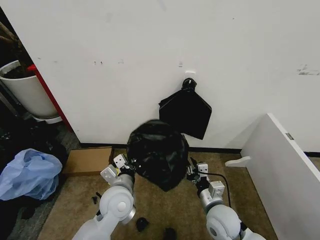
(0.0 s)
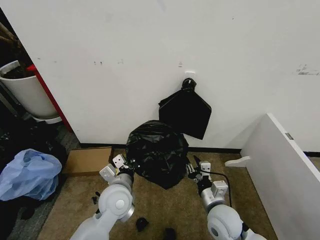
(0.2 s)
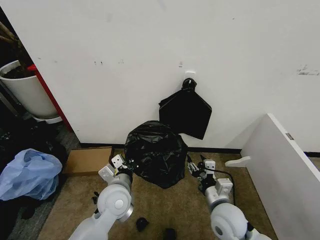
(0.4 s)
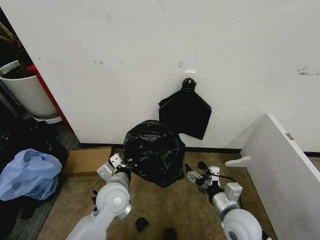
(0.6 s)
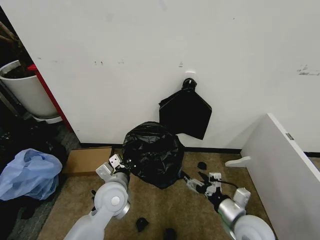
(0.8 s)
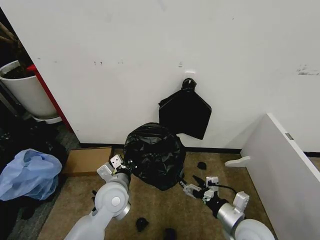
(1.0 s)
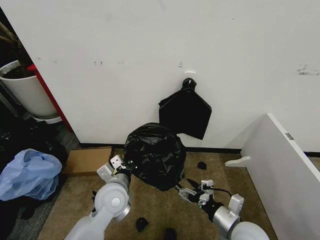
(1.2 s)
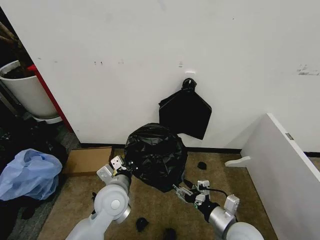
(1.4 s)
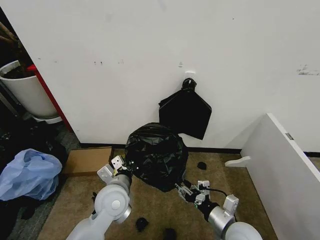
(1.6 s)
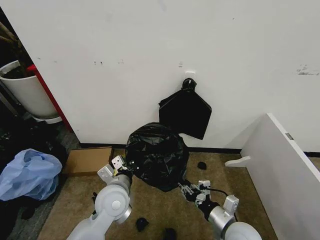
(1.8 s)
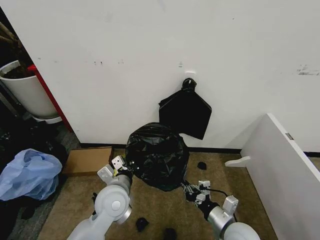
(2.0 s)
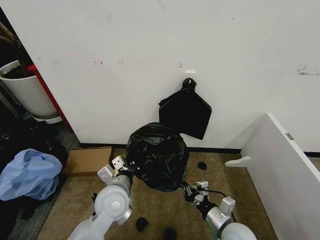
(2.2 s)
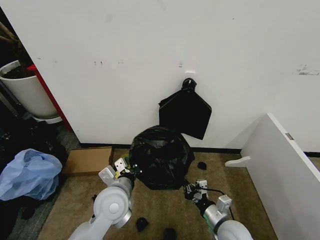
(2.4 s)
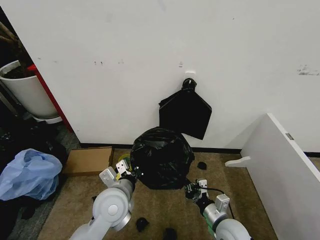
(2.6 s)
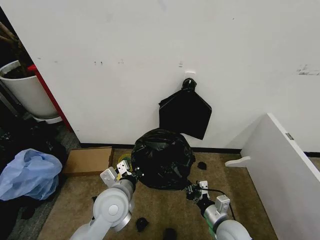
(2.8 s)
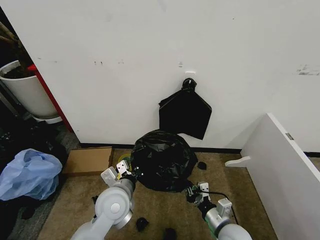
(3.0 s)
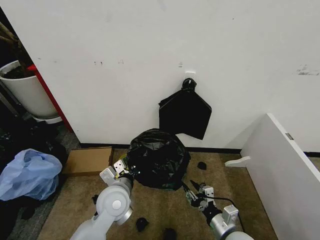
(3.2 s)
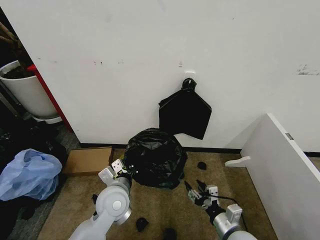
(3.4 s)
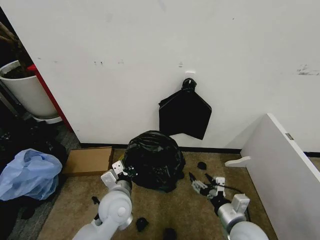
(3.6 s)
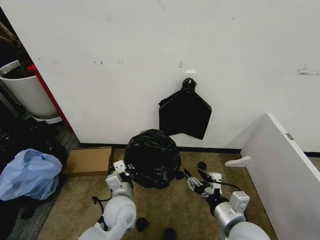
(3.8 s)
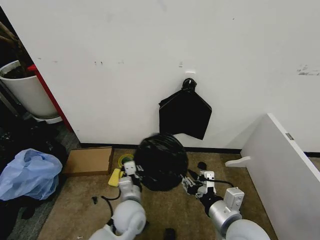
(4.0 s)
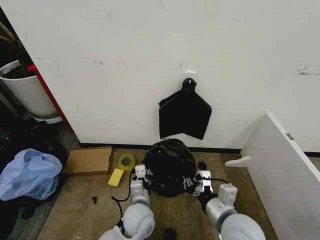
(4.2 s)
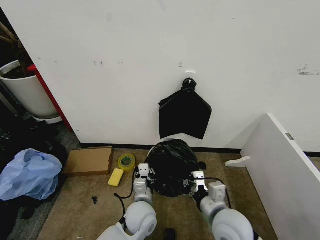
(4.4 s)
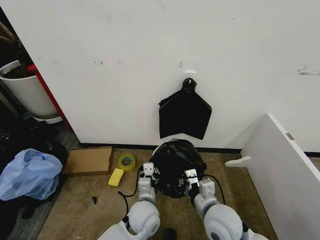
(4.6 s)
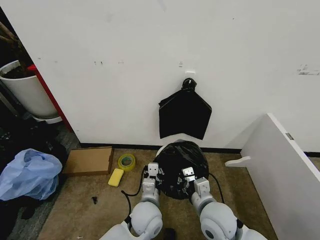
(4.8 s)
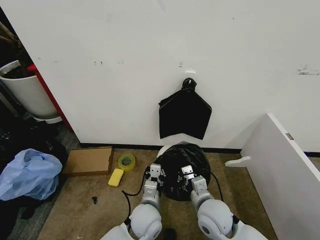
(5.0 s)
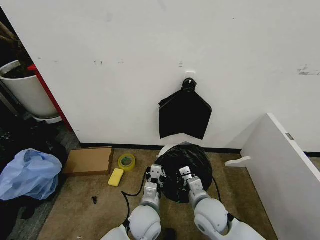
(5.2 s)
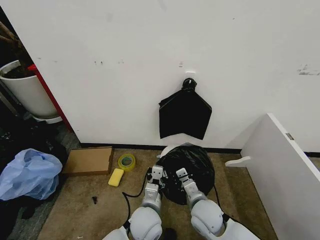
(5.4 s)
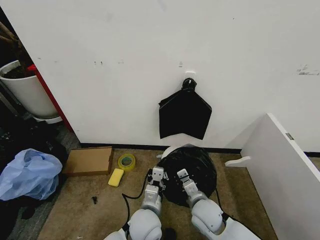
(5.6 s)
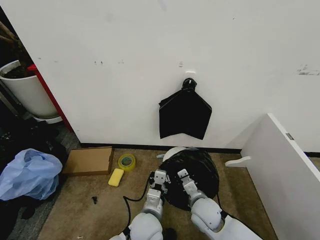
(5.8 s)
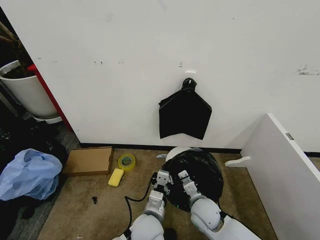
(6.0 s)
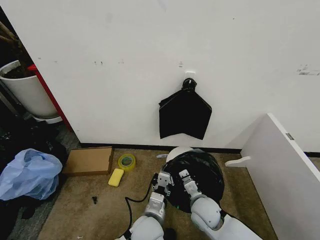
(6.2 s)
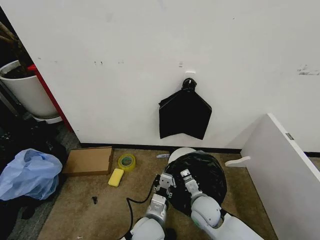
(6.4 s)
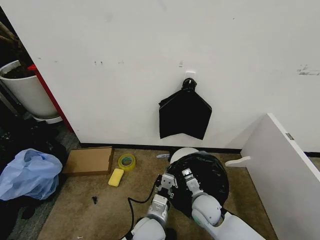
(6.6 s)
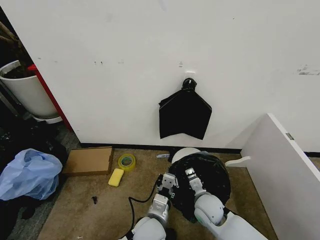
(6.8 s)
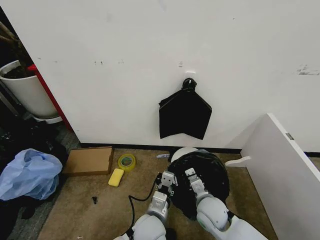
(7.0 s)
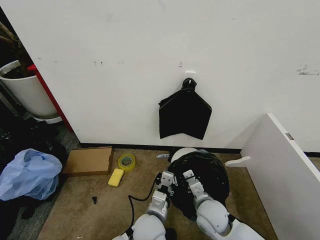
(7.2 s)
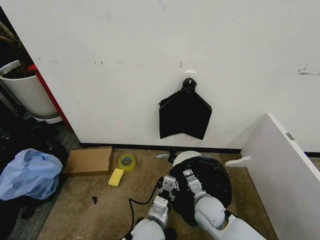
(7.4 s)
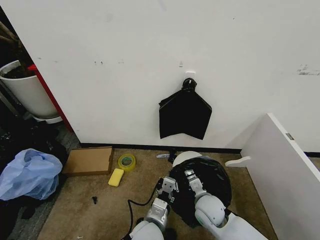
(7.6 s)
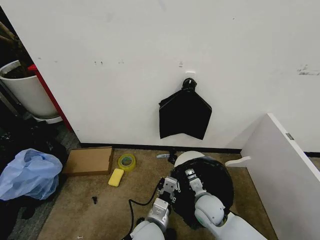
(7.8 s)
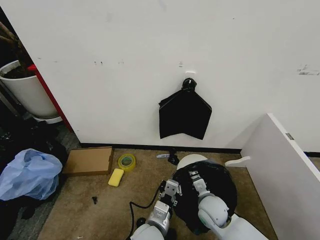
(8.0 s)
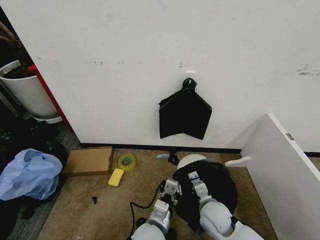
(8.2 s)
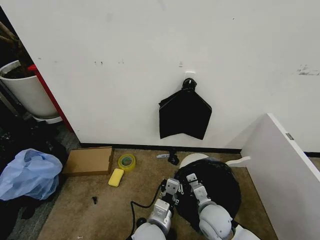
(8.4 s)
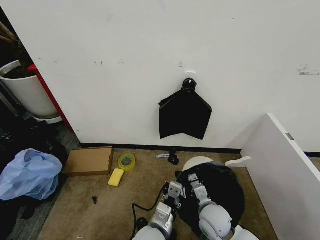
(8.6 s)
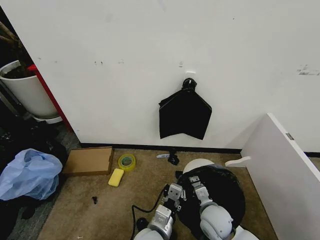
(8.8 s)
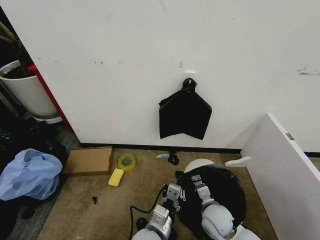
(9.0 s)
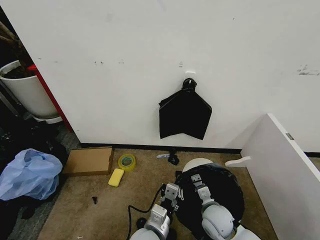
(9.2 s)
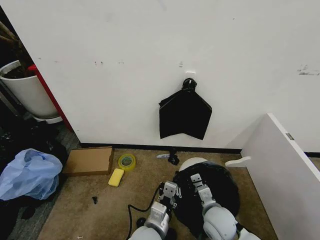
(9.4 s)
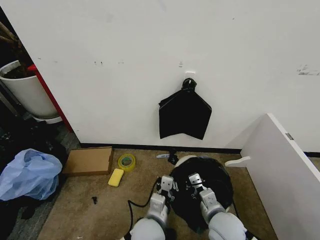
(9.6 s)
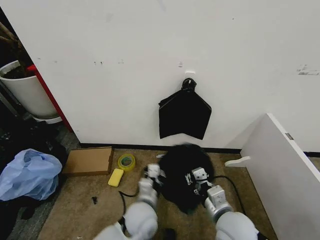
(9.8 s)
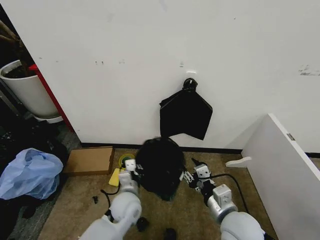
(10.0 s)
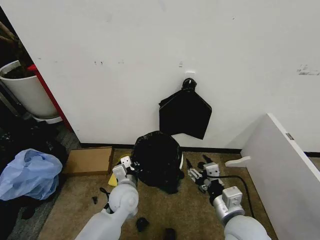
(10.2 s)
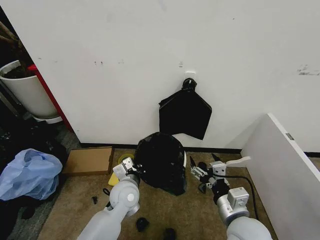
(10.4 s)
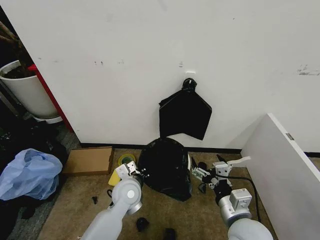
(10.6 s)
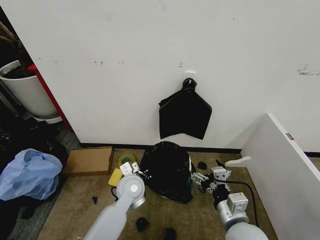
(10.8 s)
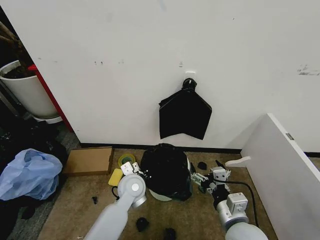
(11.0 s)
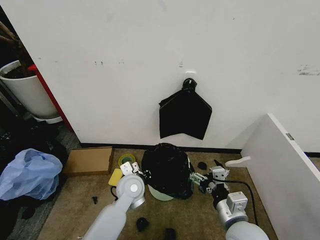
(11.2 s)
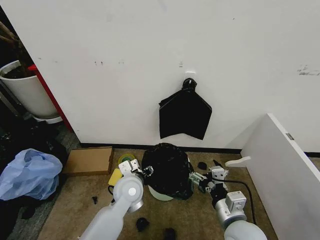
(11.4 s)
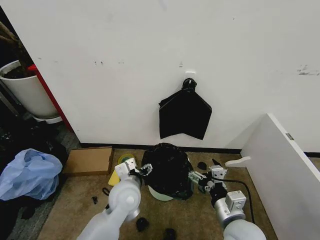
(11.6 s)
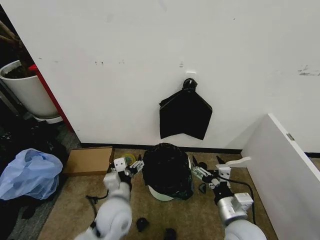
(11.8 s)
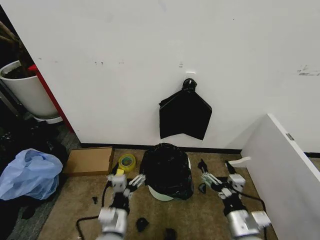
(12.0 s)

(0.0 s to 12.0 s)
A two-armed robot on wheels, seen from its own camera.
Task of the whole recording: Place the garbage bag over the trash bin.
0.0 s - 1.6 s: The right gripper ends up approximately 5 cm from where it was, and opens, then closes again.
1.6 s - 3.0 s: There are only small adjustments of the grippers.
3.0 s - 4.4 s: The left gripper heads downward and to the right, covering roughly 10 cm. Meanwhile the right gripper goes approximately 10 cm upward, and opens and closes again.
4.4 s - 6.0 s: The right gripper is displaced downward and forward by roughly 15 cm.
6.0 s - 9.0 s: The grippers move only a little.
9.0 s - 10.4 s: The right gripper shifts roughly 15 cm upward and backward, and opens. The left gripper shifts some 15 cm forward and to the left.
10.4 s - 12.0 s: The left gripper moves backward, about 10 cm, and opens.

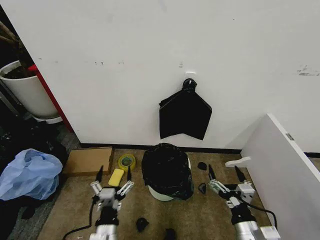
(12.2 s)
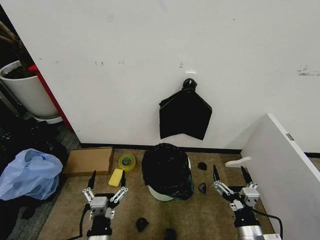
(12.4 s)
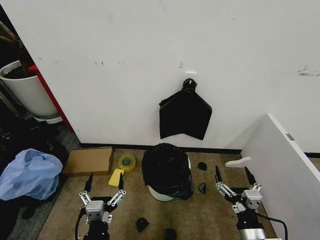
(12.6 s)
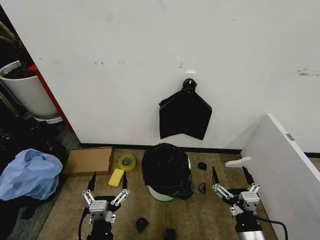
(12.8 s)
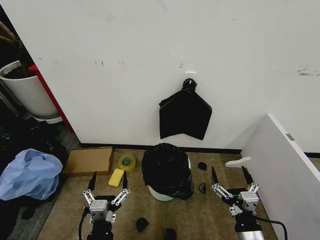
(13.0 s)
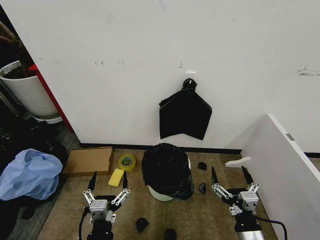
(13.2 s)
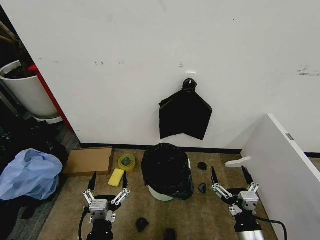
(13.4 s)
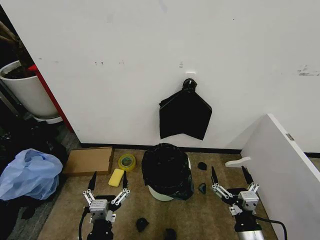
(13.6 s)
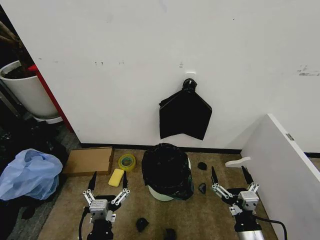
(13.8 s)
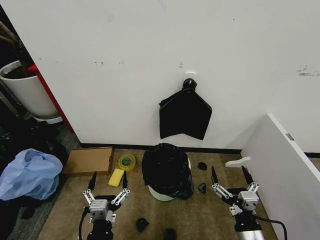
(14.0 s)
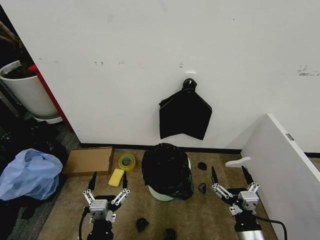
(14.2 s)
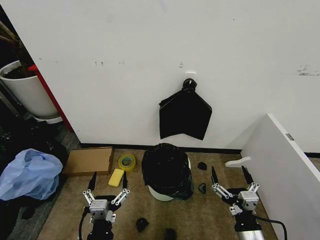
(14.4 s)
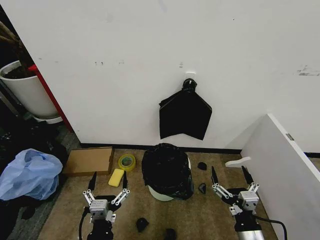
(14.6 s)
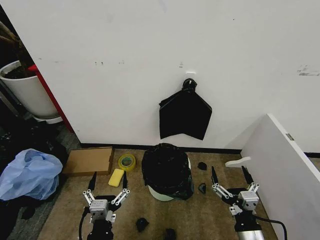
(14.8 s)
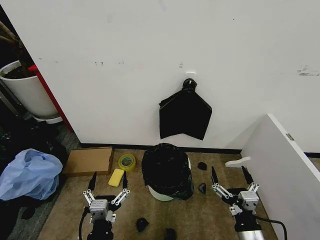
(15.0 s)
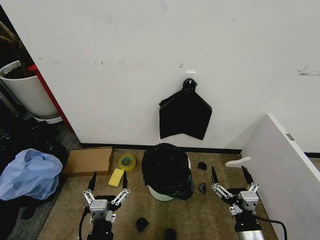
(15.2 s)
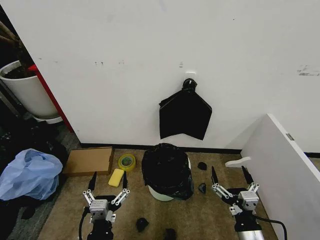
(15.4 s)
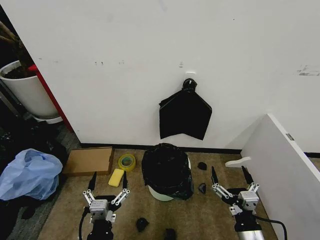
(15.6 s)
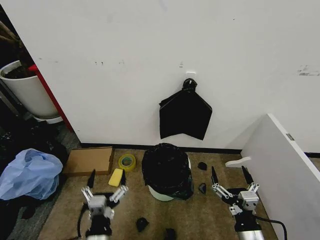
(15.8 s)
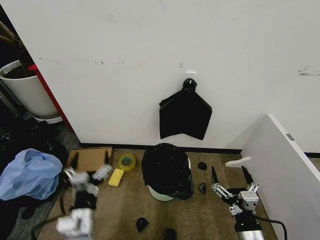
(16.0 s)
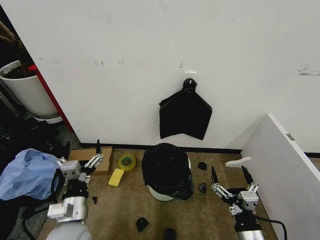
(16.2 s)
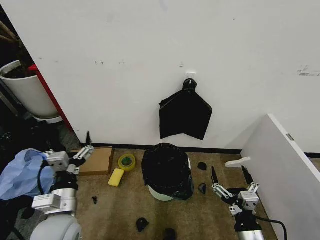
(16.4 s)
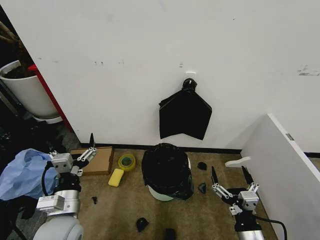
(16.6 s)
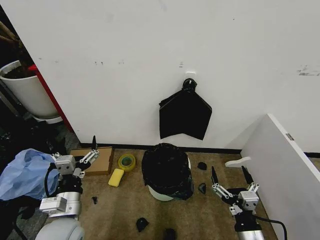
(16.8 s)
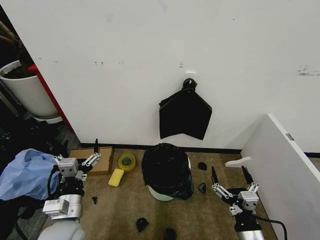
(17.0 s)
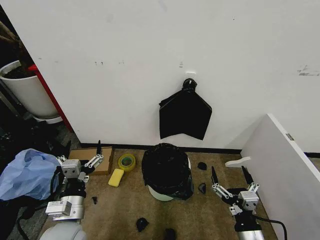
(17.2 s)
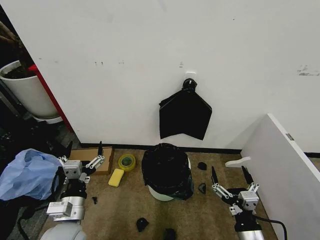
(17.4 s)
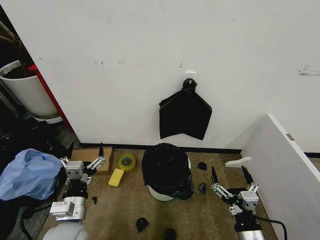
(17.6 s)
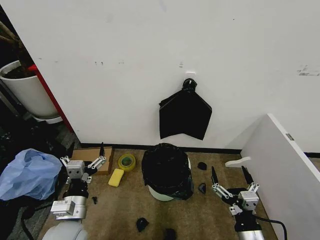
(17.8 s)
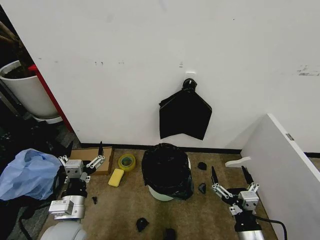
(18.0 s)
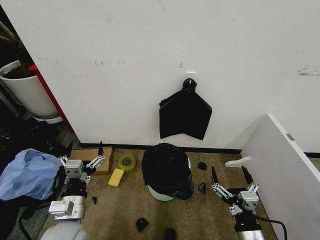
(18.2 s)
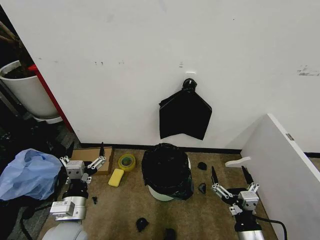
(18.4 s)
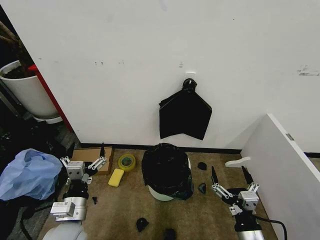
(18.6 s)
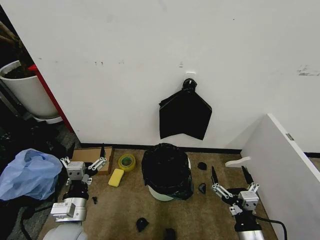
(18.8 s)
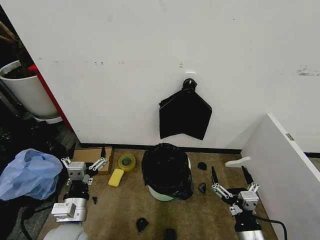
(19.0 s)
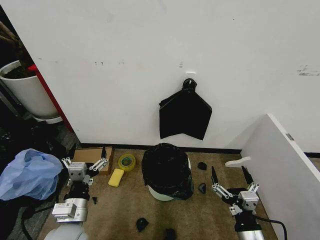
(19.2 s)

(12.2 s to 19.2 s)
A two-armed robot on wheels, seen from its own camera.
Task of the whole recording: Place the garbage bag over the trash bin.
12.2 s - 13.6 s: The left gripper moves about 5 cm.
13.6 s - 15.0 s: Both grippers stay about where they are.
15.0 s - 16.4 s: The left gripper is displaced forward, to the left and upward by some 15 cm.
16.4 s - 17.8 s: The grippers stay close to where they were, moving slightly.
17.8 s - 19.2 s: Neither gripper changes place.

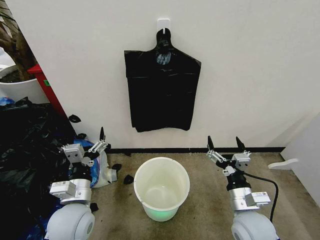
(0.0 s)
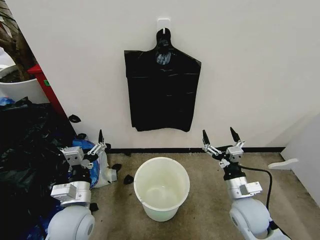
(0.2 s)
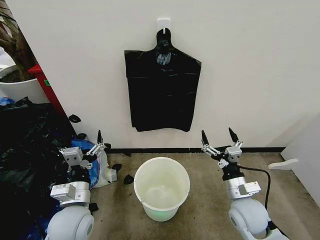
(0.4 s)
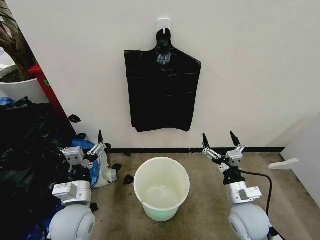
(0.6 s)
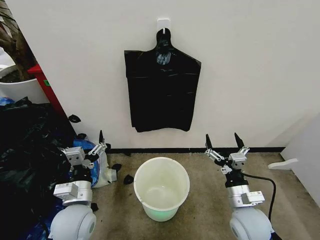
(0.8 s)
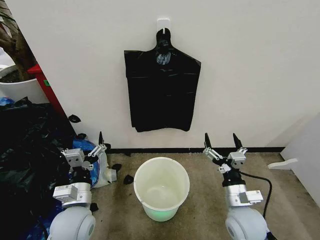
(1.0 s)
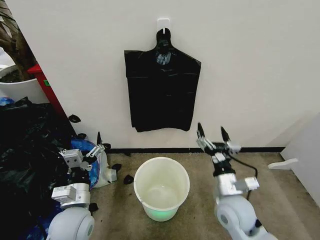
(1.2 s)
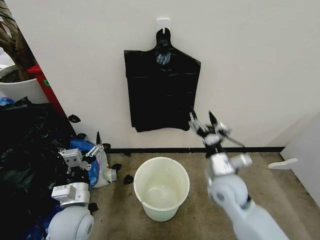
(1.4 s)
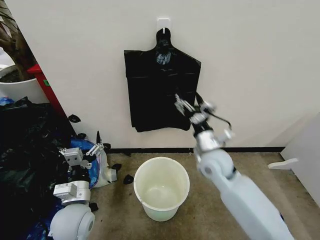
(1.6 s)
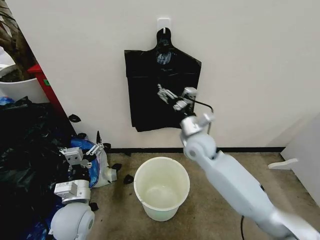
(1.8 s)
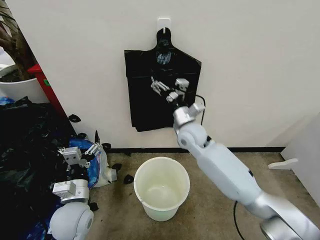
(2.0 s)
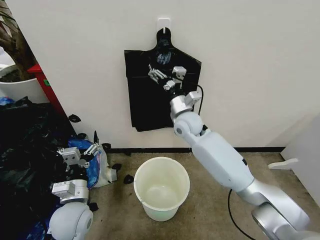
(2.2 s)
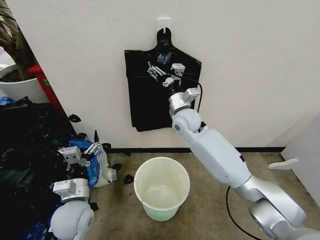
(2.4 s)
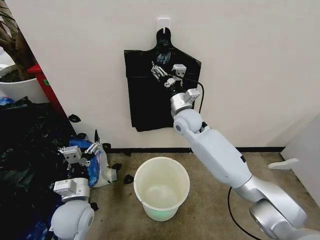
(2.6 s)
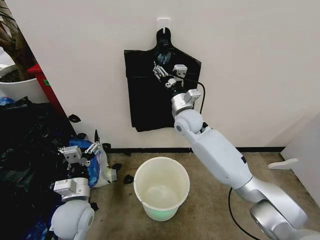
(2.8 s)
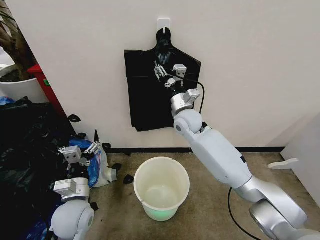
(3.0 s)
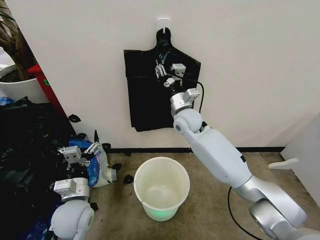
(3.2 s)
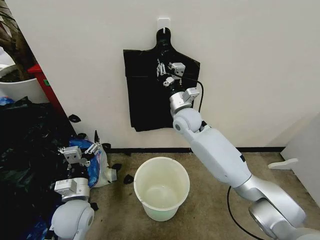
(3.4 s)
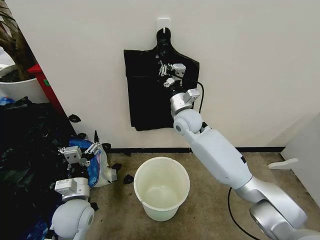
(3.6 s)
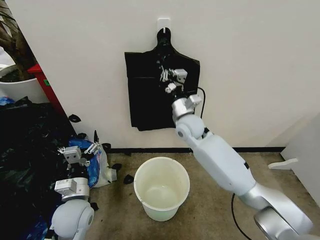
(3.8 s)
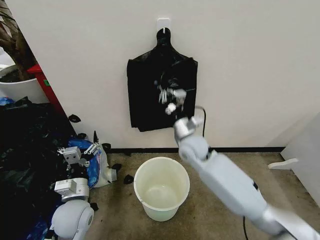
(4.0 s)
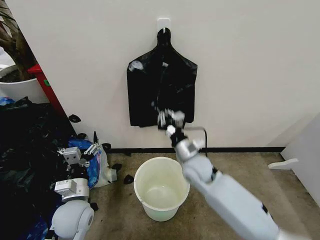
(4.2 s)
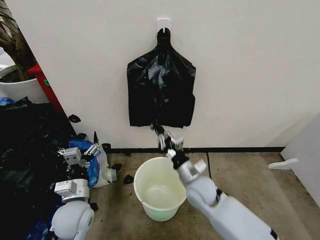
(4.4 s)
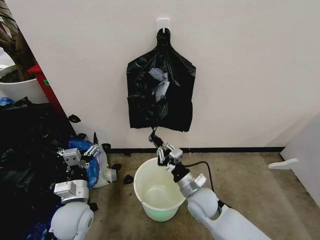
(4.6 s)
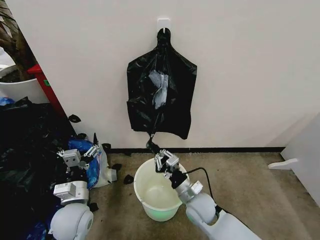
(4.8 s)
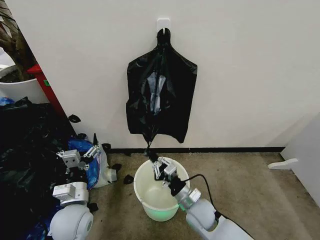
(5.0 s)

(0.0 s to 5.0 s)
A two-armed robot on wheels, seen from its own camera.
Task of the whole recording: Place the garbage bag over the trash bin.
1.6 s - 3.4 s: The right gripper heads forward, to the left and upward, covering some 15 cm, and closes up.
3.4 s - 5.0 s: The right gripper heads downward and backward, covering approximately 35 cm.
